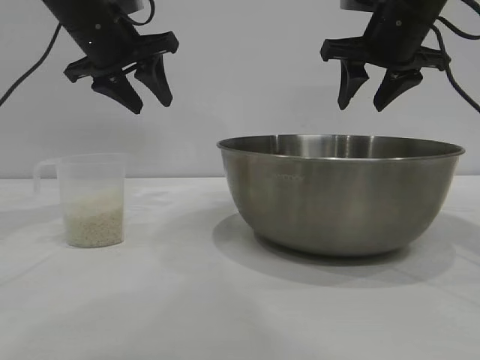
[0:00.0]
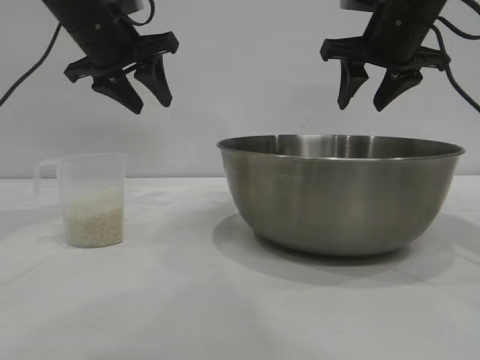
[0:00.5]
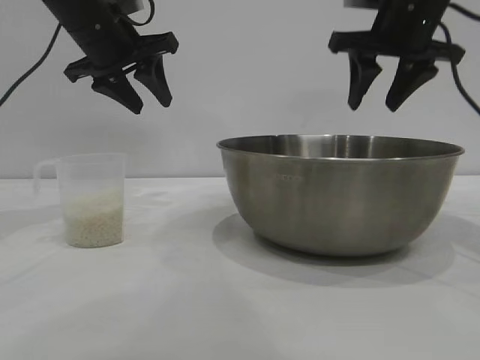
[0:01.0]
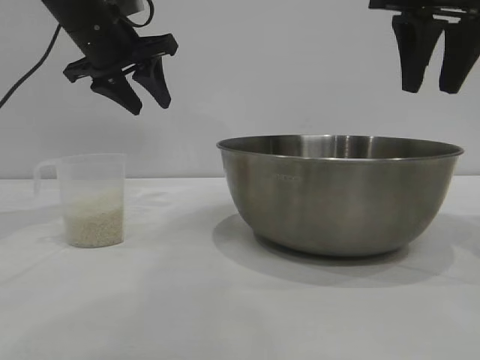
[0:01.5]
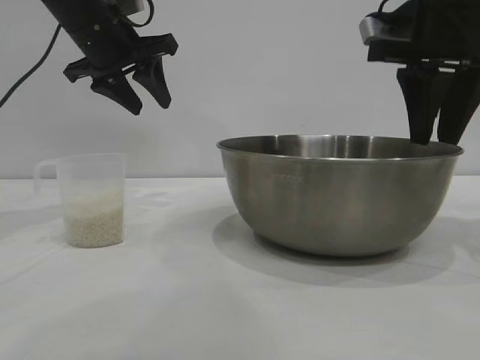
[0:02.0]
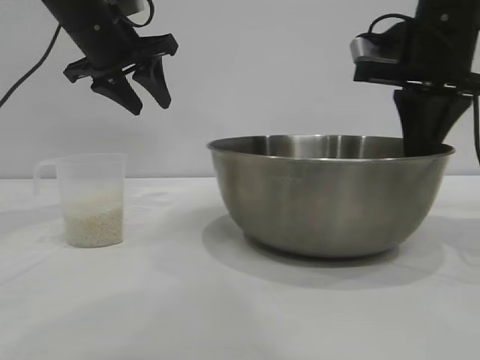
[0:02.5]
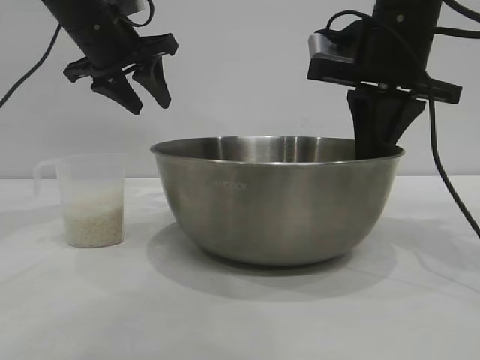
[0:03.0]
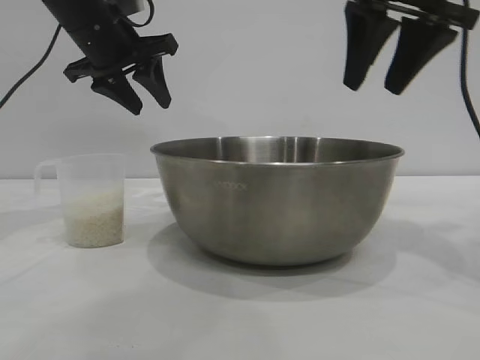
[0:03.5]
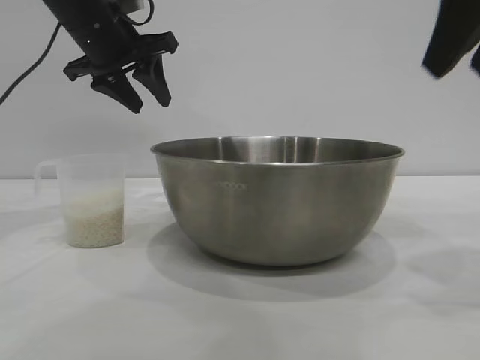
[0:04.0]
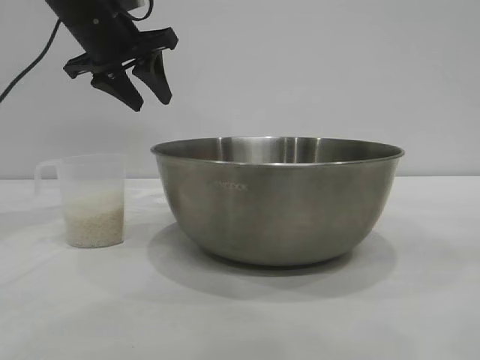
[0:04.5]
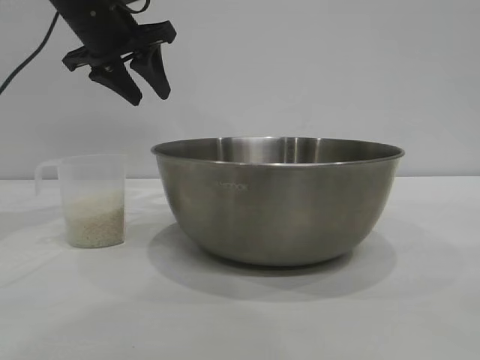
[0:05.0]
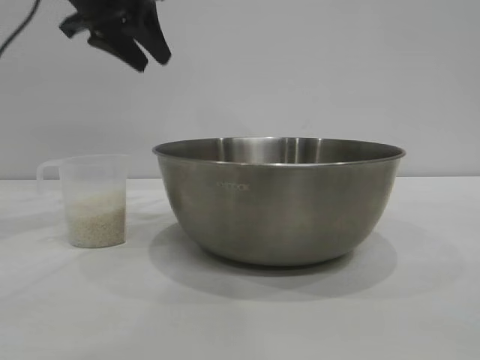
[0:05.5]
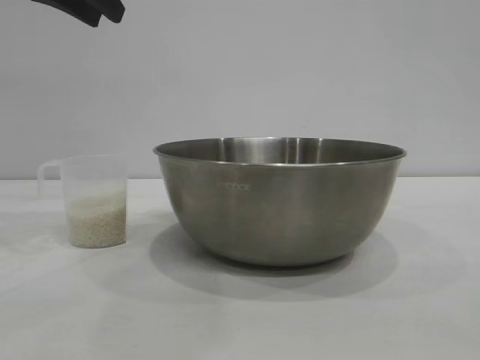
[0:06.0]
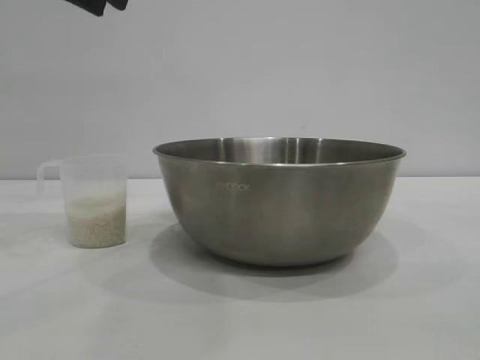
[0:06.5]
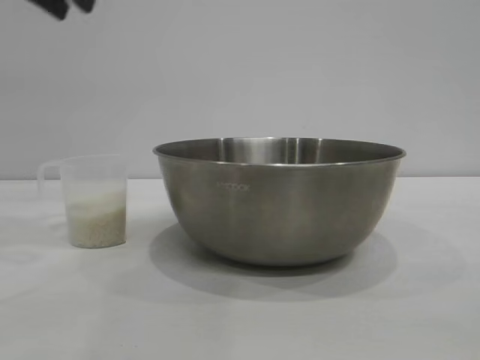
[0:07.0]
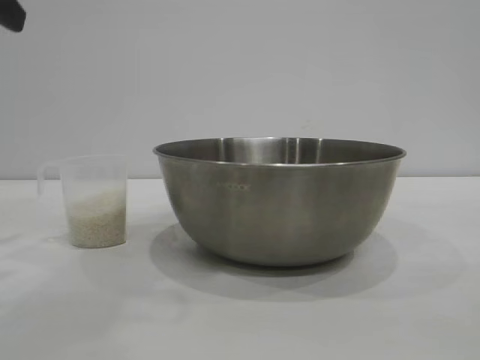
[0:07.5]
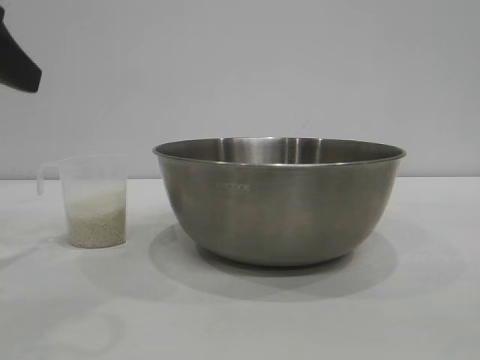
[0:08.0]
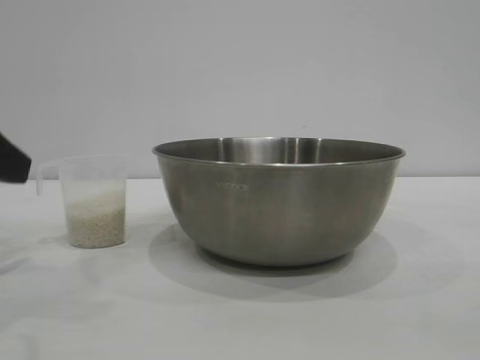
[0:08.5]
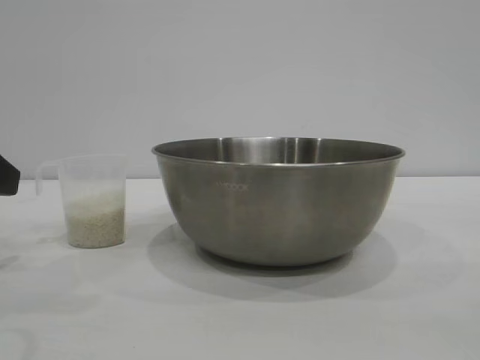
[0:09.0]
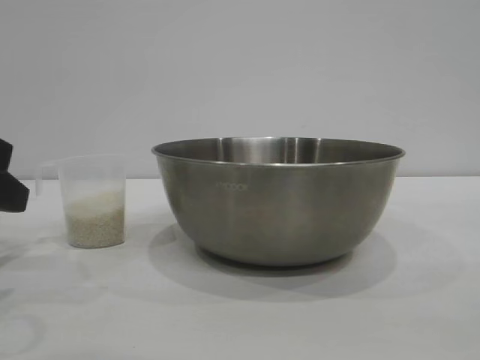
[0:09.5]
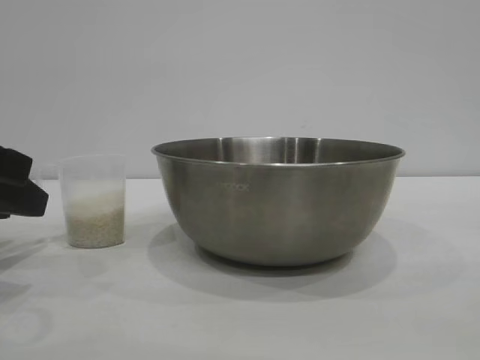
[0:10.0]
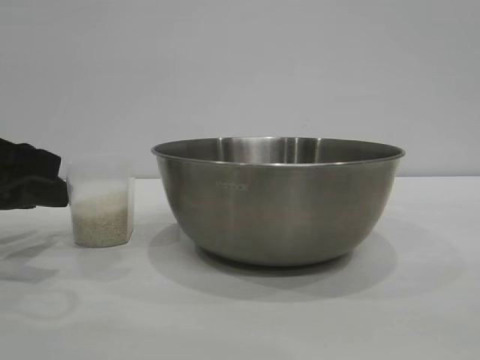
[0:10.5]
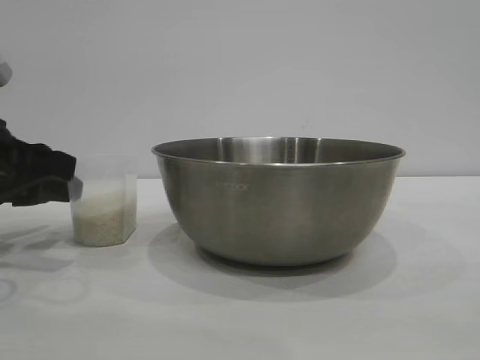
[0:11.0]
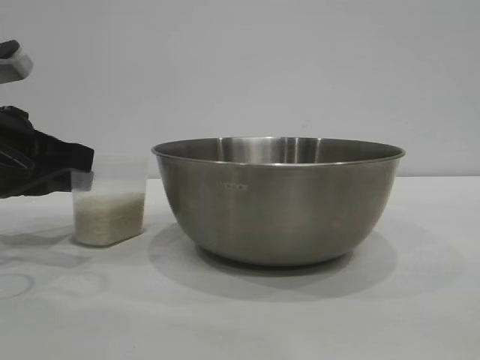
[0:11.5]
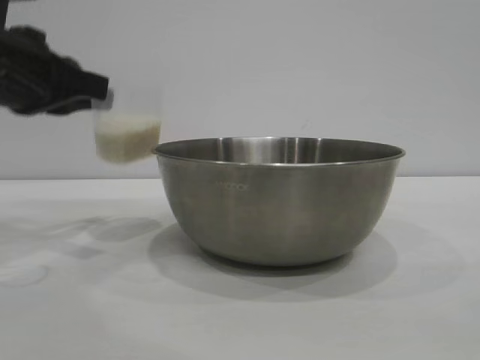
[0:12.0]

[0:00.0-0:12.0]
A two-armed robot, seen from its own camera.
Task of the whole recording: the right gripper grasp the rice container and place it in the center of the table, the left gripper grasp the rice scoop and pour the rice into the rice container.
Step, 0:00.0 to 0:03.5: Move the bowl to the center of view with the right gripper.
Step, 0:04.0 to 0:12.0: Pick up the cup with rice in it with the left gripper.

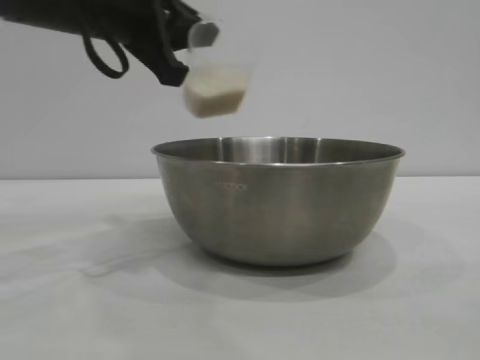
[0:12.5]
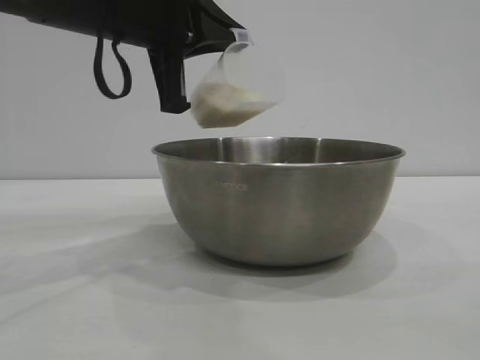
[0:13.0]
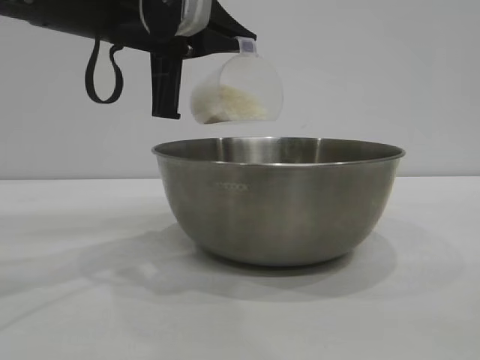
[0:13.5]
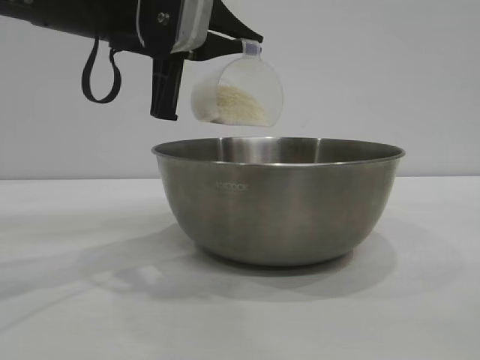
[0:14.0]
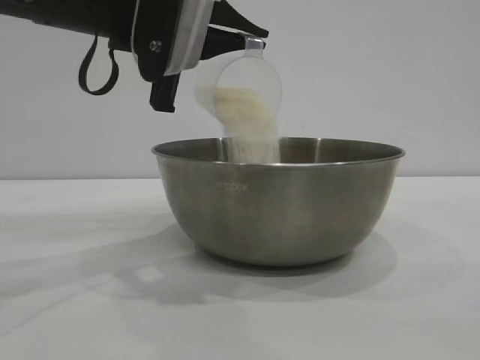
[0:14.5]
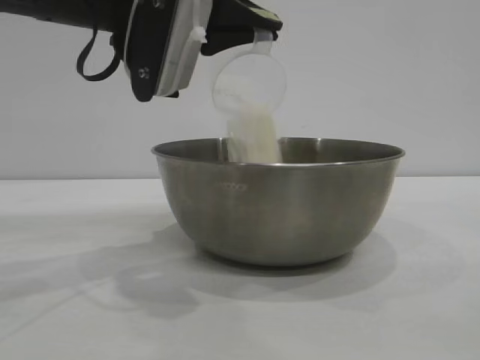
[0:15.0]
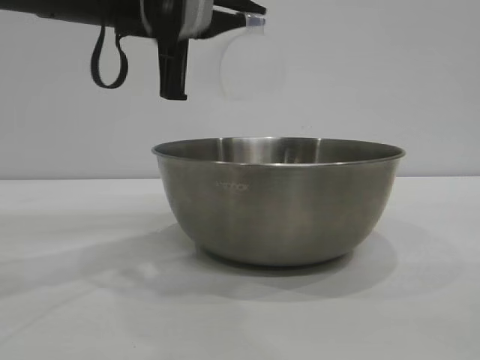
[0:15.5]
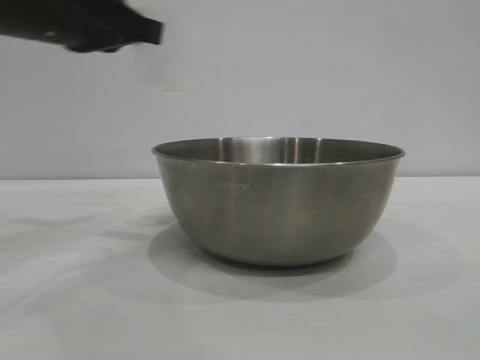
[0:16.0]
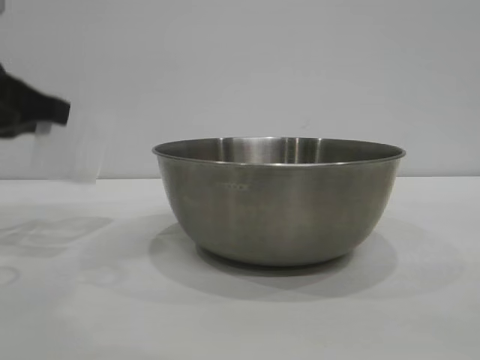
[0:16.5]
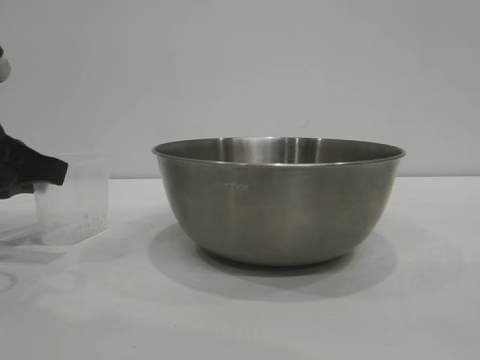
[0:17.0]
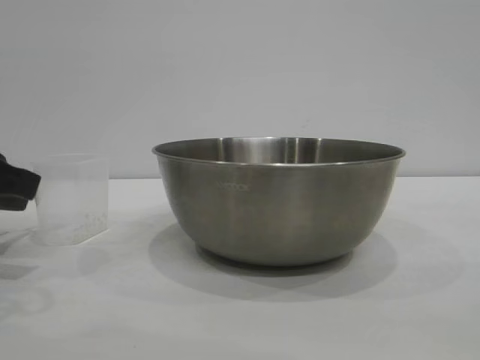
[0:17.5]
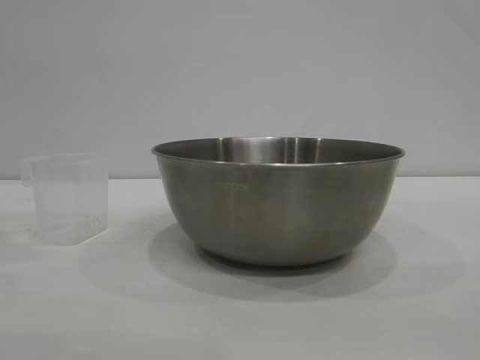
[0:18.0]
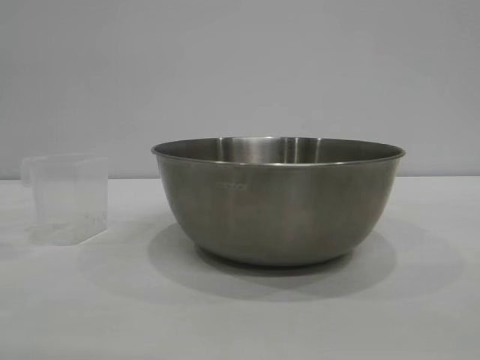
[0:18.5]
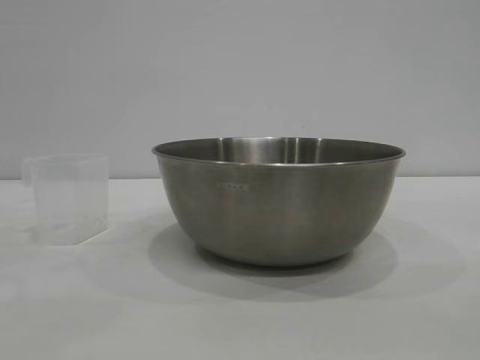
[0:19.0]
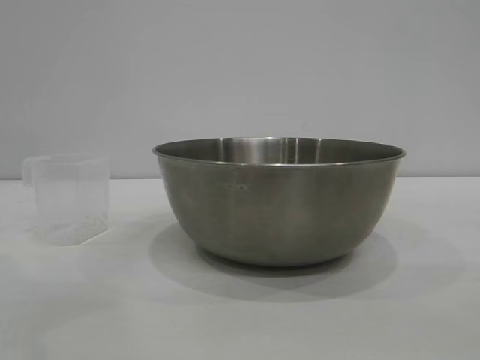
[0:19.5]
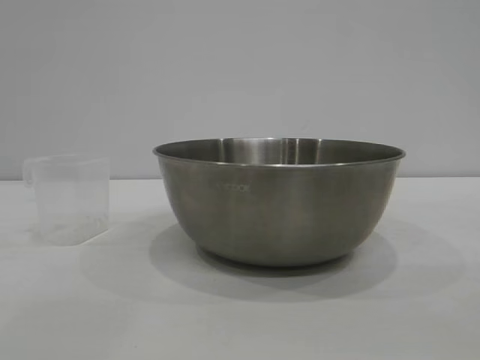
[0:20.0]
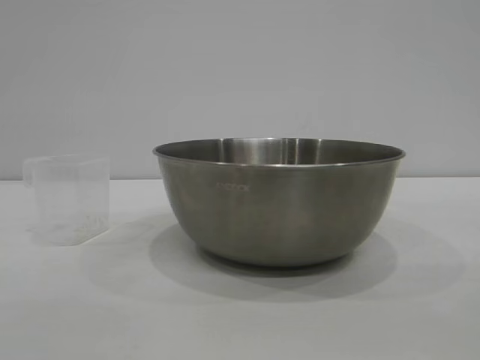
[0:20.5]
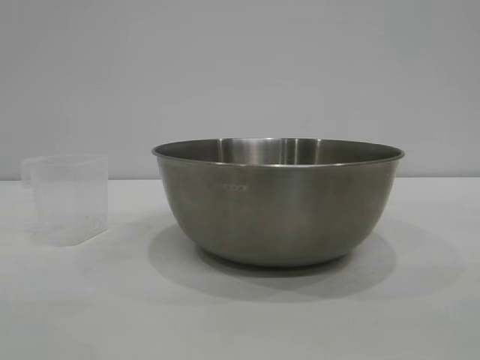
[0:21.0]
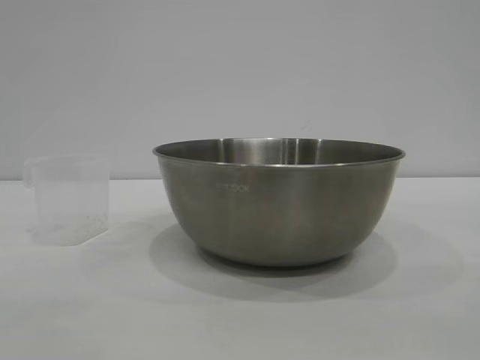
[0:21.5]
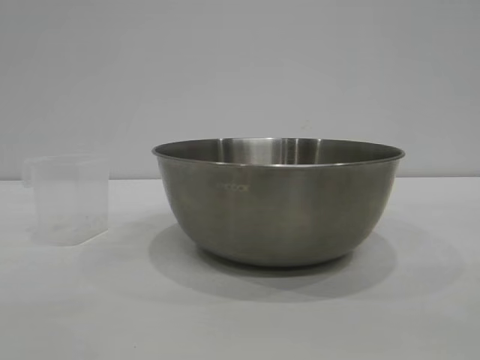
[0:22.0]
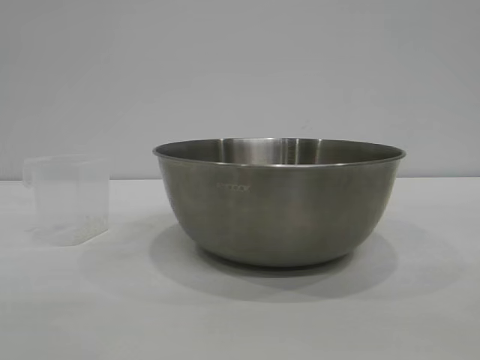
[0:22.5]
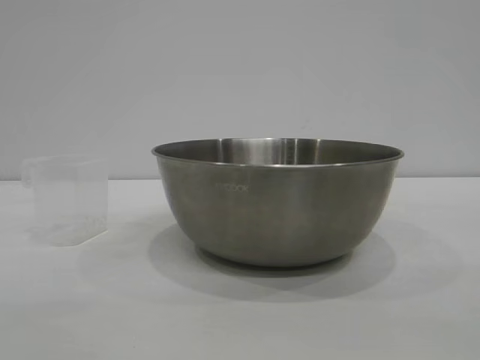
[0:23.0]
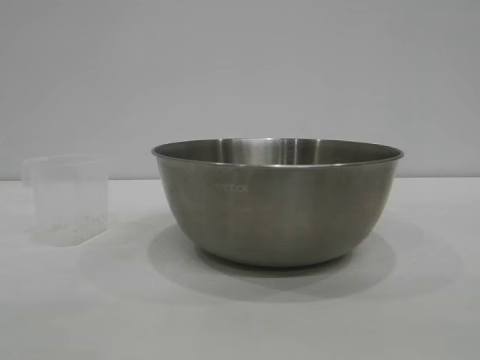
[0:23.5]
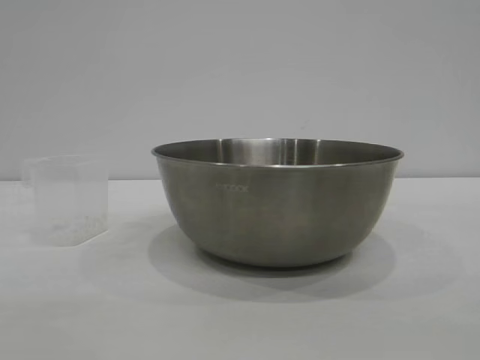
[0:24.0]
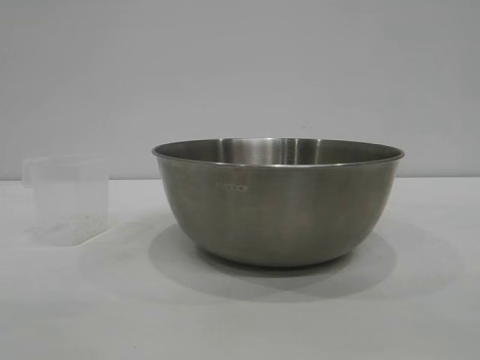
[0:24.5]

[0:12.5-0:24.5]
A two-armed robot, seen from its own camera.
Task of the whole recording: the right gripper grasp the rice container and place it in the center of the table, the left gripper grasp the rice scoop and pour the rice into the rice container.
Step, 0:12.5 to 0:15.5: Pour the rice from the cup into the bowl with the left gripper.
Step, 0:16.0 to 0:17.0: Place the cup on the table with the left gripper.

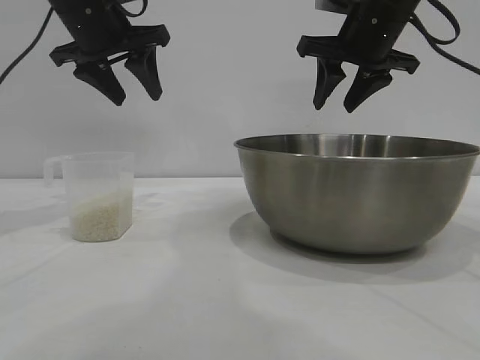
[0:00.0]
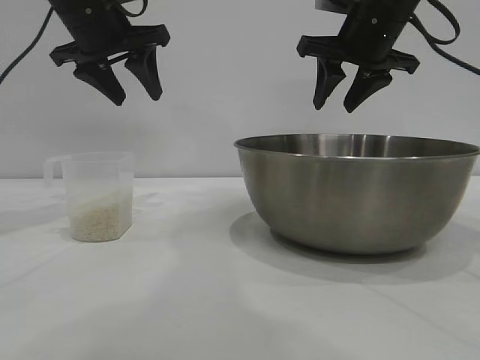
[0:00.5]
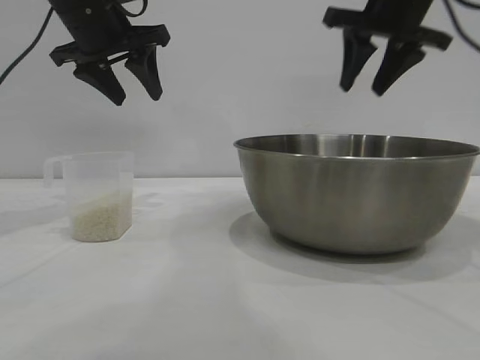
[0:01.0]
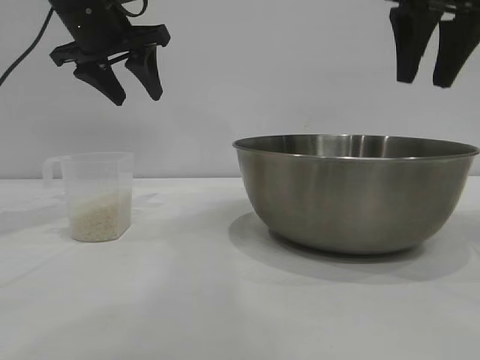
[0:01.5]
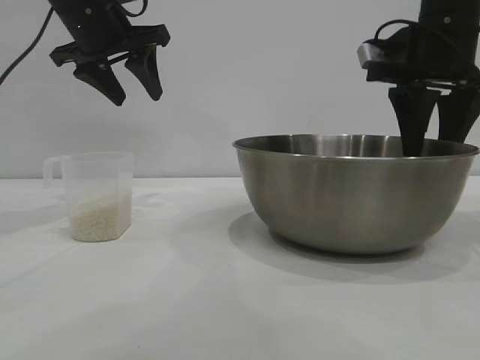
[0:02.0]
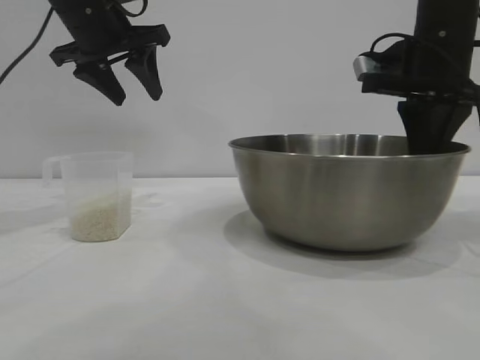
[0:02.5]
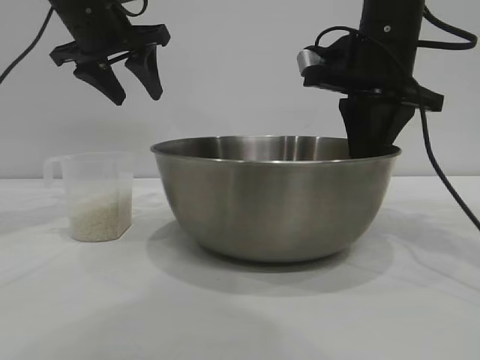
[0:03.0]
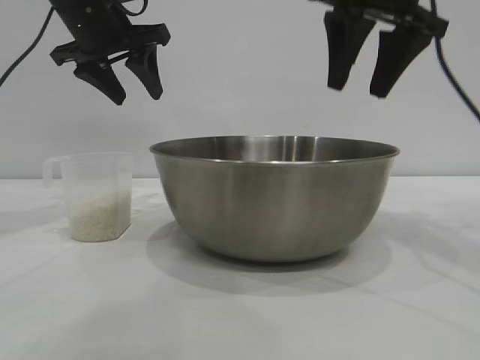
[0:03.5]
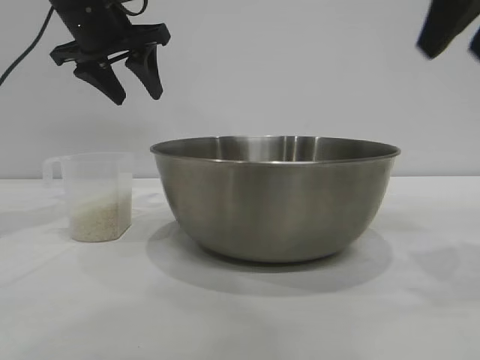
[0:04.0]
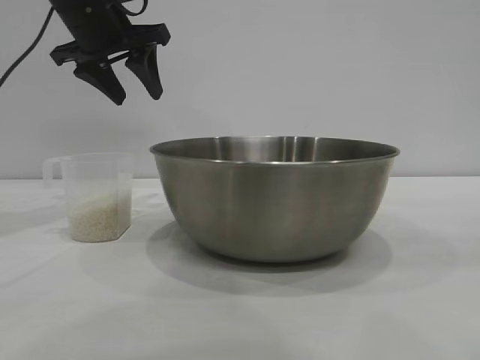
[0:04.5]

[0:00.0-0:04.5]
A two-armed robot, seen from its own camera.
Task of the whole recording: the right gripper grasp the rice container and place it in the center of the table, the left gripper grasp the rice scoop and pour the rice into the rice container.
Step, 0:00.0 to 0:03.0: Move the bowl to the center of view with the right gripper.
